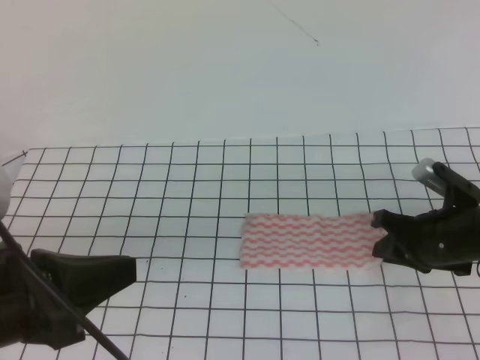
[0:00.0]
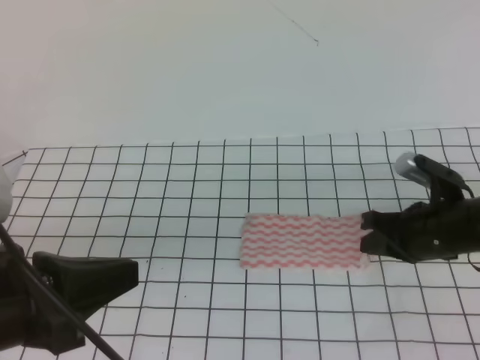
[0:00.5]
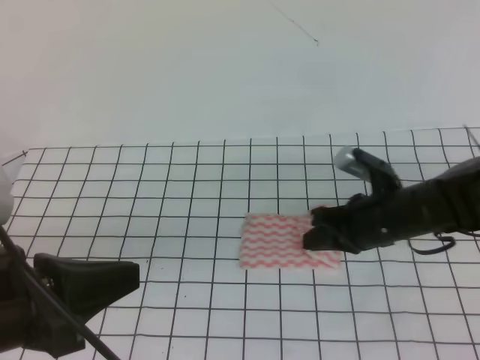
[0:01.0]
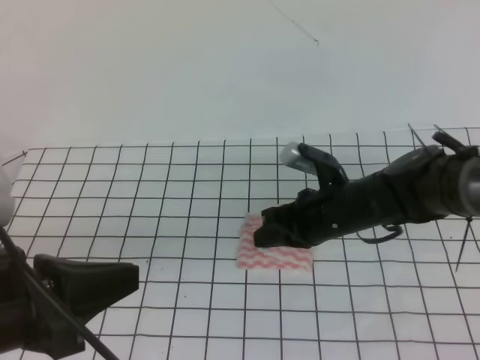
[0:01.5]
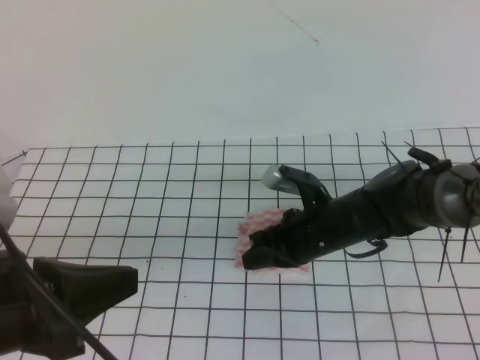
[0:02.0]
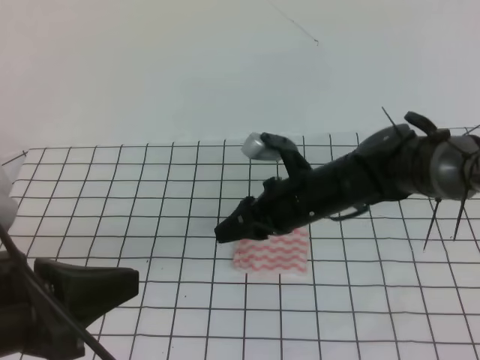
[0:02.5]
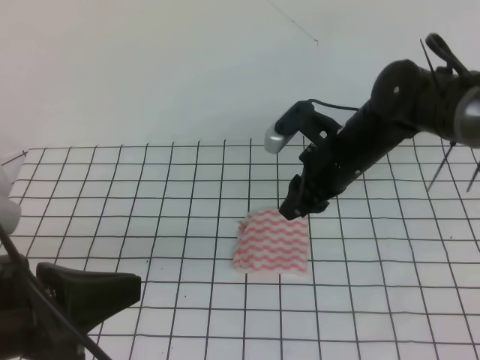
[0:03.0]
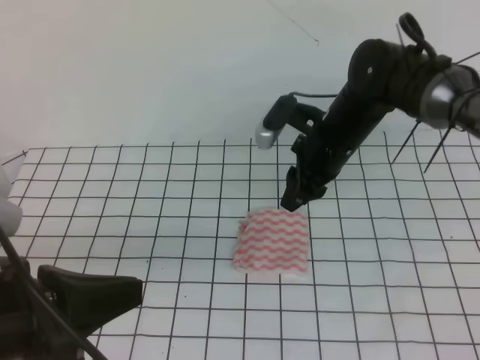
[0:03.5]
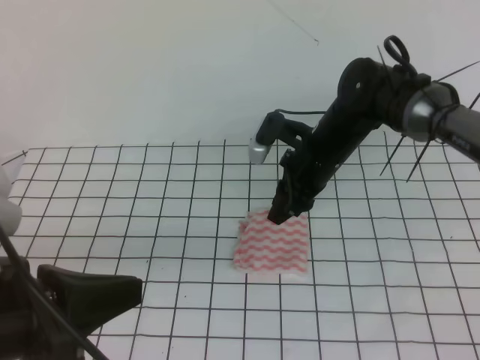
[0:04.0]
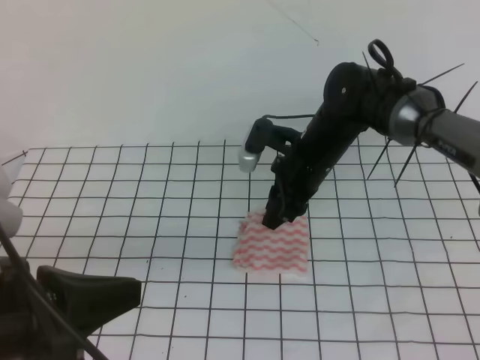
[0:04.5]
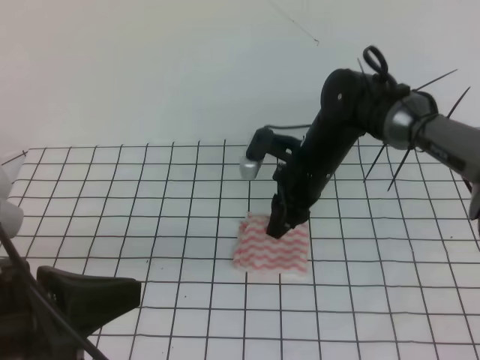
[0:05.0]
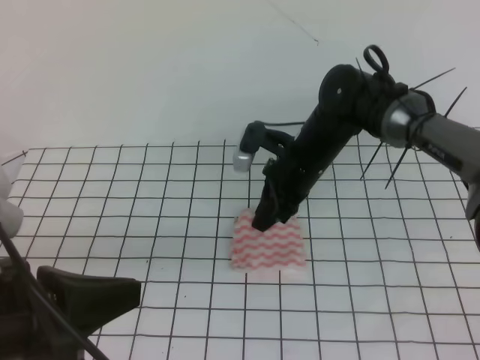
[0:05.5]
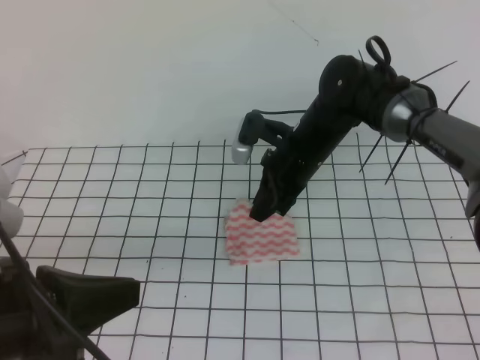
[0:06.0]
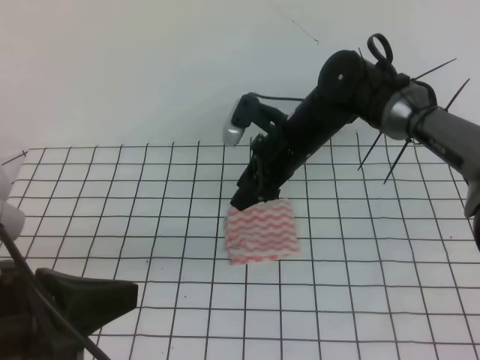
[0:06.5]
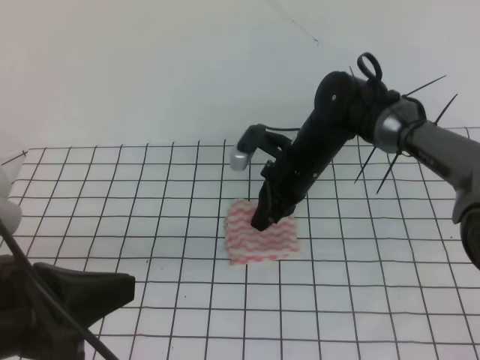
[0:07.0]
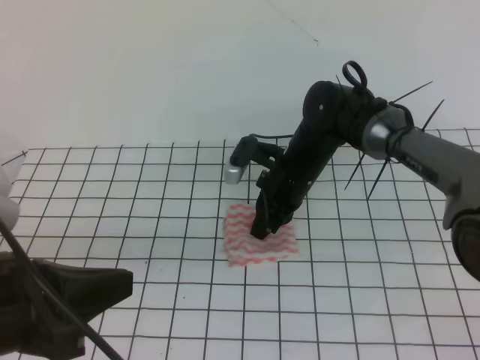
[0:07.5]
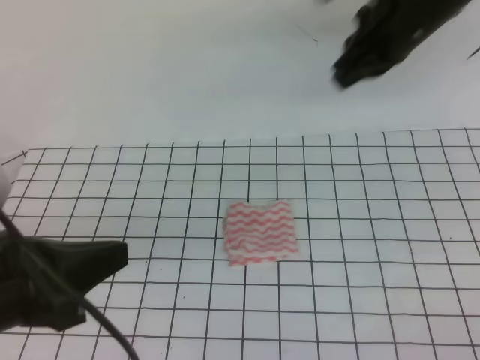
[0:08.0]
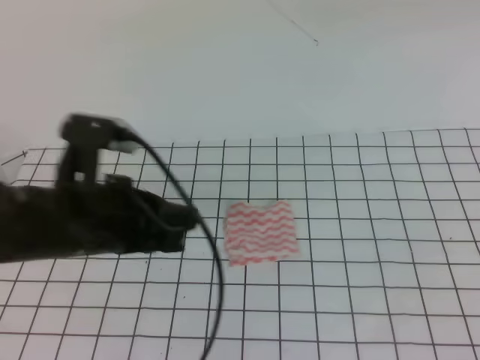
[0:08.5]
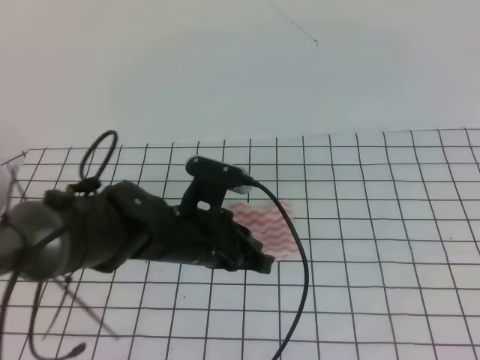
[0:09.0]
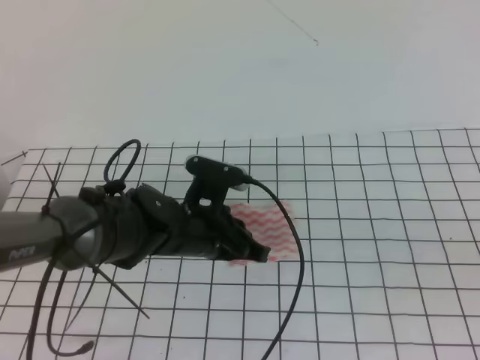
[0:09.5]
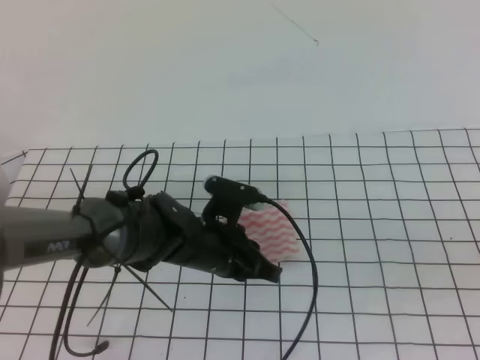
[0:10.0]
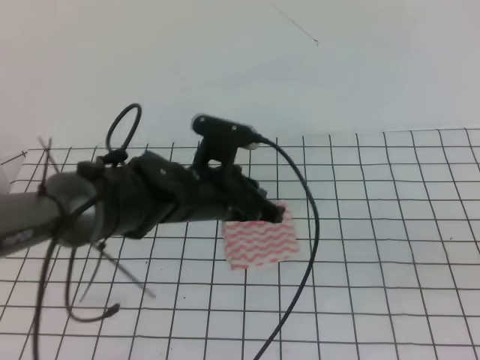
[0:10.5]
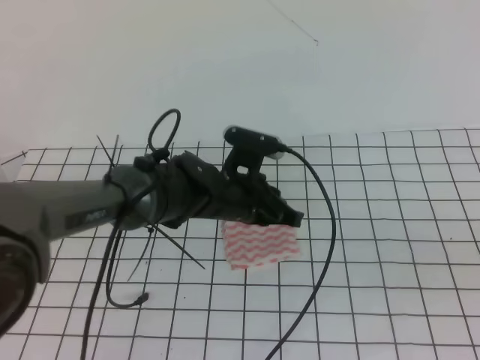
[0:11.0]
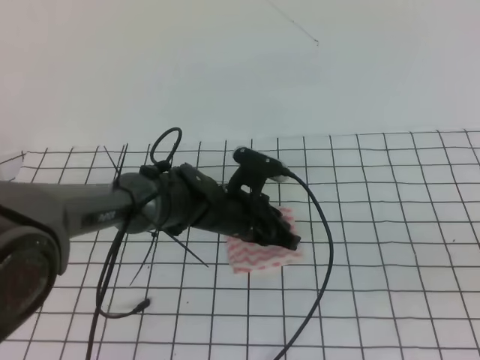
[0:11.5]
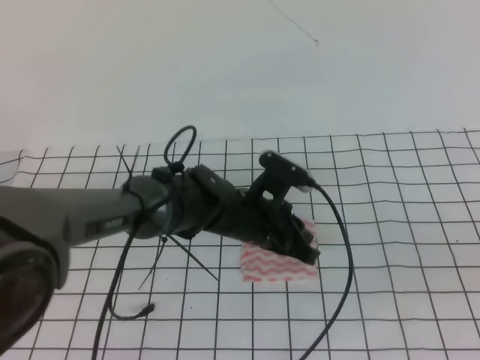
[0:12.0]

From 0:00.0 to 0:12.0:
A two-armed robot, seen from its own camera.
From 0:00.0 to 0:02.0: The right gripper goes some 15 cm to the left, and closes up.
From 0:02.0 to 0:04.0: The right gripper travels forward and upward by roughly 10 cm, and opens.
From 0:04.0 to 0:06.0: The right gripper closes up.
From 0:06.0 to 0:08.0: The right gripper goes some 20 cm upward and to the right, and closes.
From 0:08.0 to 0:10.0: The left gripper heads downward, forward and to the right, covering about 30 cm. Meanwhile the right gripper goes roughly 35 cm backward.
From 0:10.0 to 0:12.0: The left gripper shifts about 5 cm to the right.

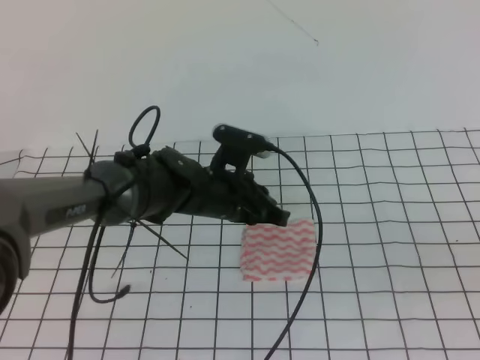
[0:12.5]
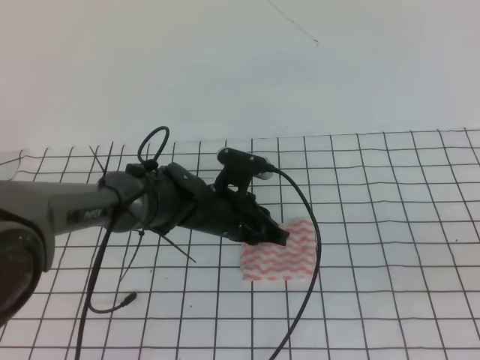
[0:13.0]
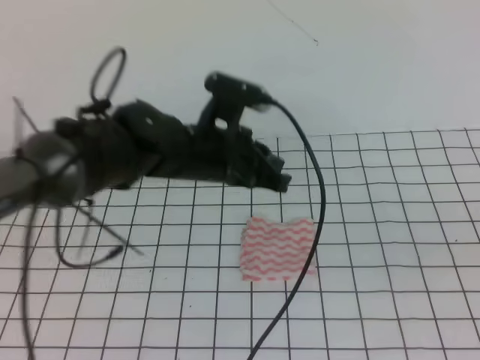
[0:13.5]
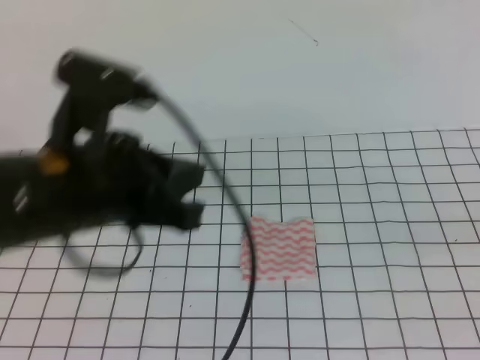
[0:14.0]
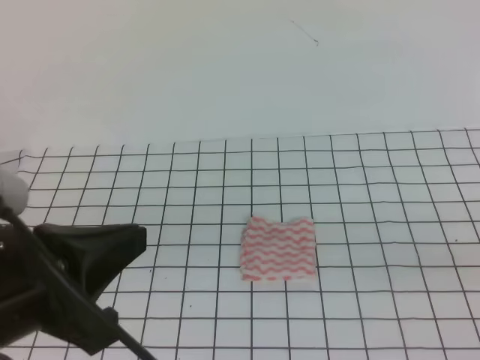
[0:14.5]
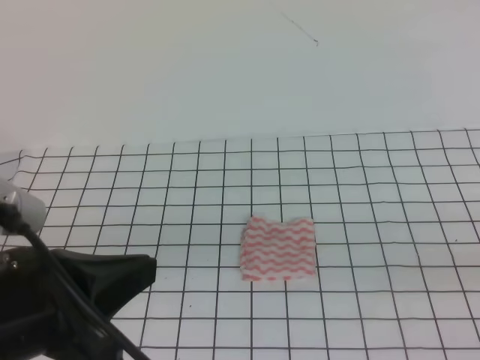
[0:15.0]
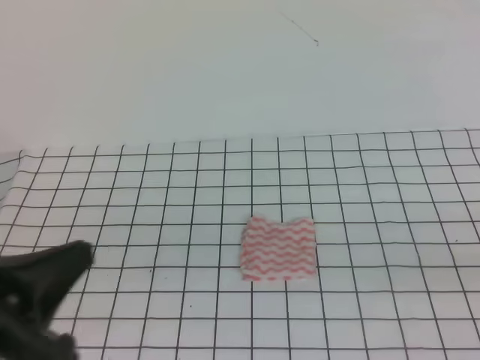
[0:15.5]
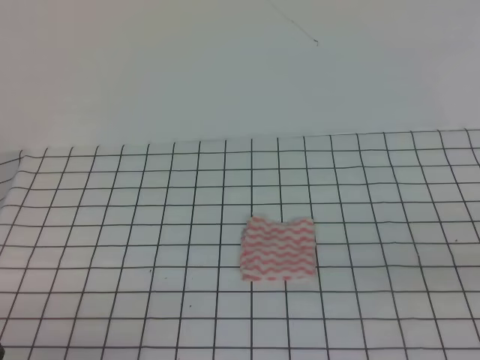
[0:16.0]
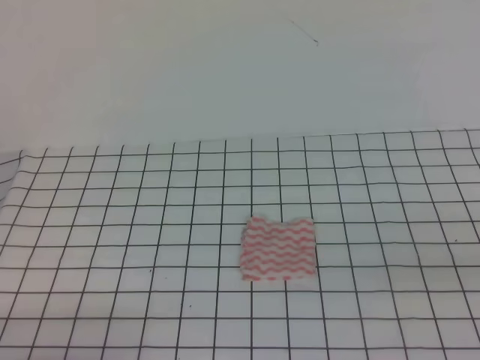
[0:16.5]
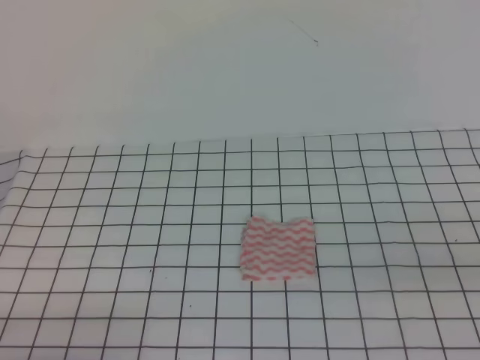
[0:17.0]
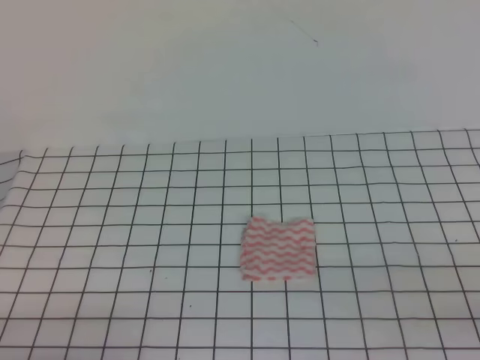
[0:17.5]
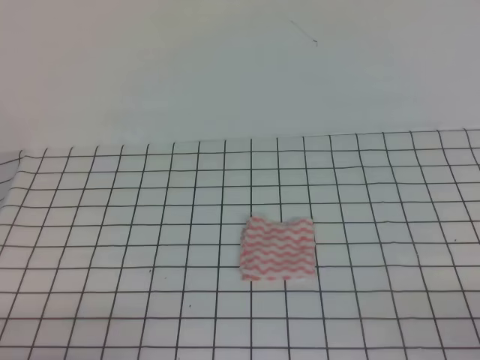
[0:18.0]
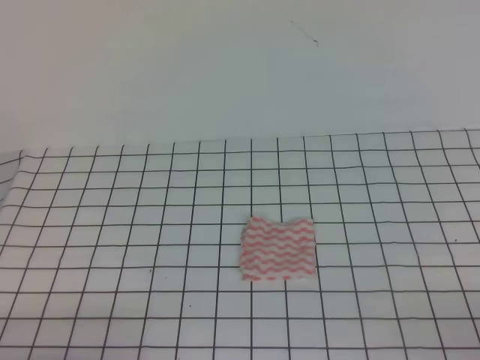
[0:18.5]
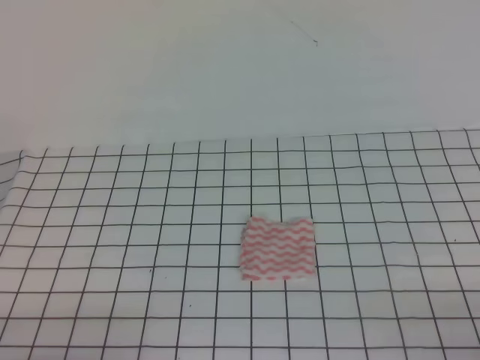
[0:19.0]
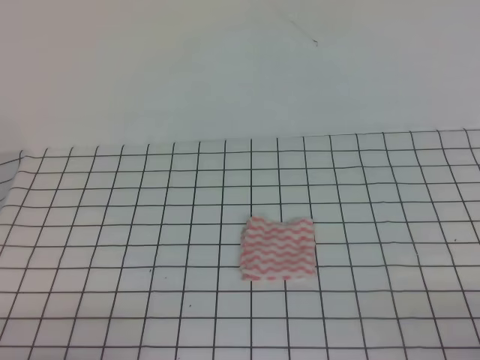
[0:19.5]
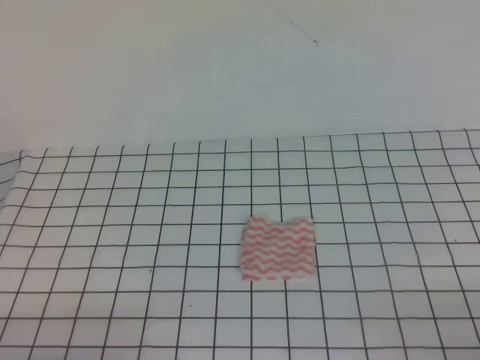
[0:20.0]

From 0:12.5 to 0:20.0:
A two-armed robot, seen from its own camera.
Step, from 0:12.5 to 0:20.0: Fold the towel.
From 0:12.5 to 0:14.5: The left gripper travels backward, upward and to the left by approximately 35 cm. The right gripper heads downward, covering approximately 10 cm.
From 0:14.5 to 0:16.5: The left gripper heads downward, to the left and backward, covering roughly 20 cm.
